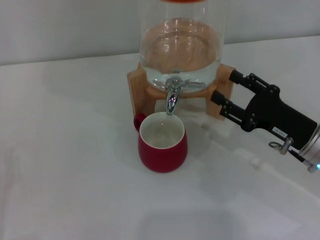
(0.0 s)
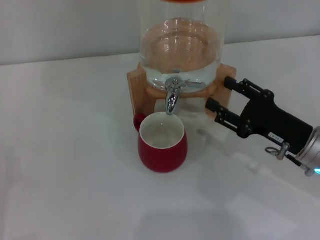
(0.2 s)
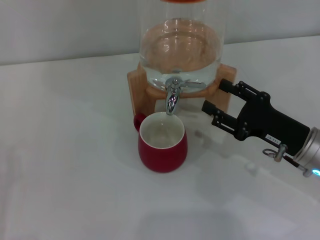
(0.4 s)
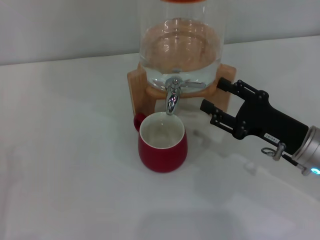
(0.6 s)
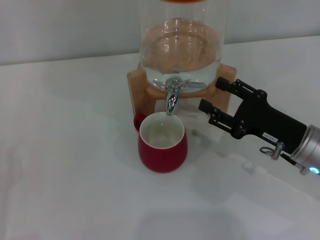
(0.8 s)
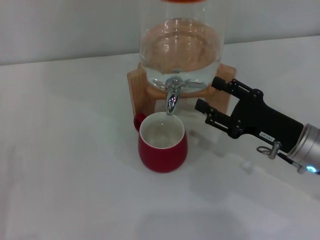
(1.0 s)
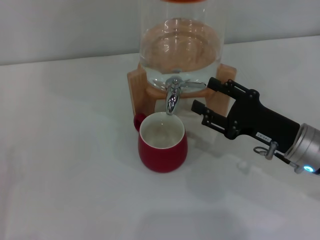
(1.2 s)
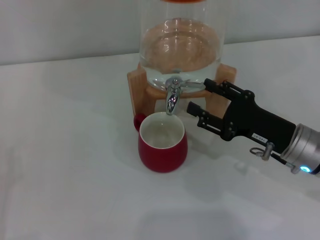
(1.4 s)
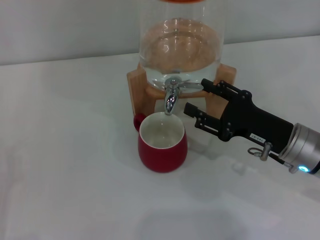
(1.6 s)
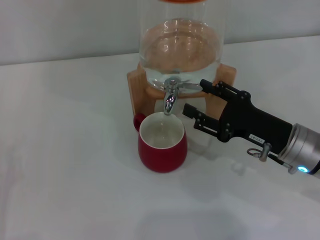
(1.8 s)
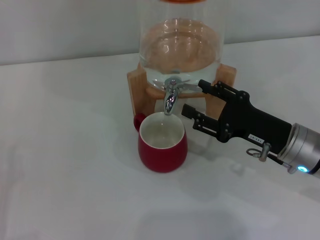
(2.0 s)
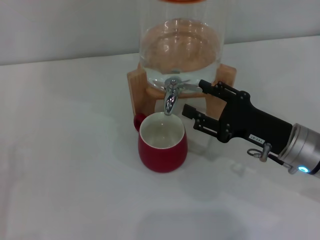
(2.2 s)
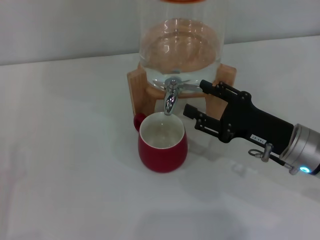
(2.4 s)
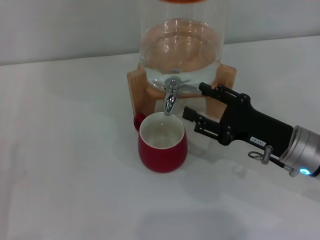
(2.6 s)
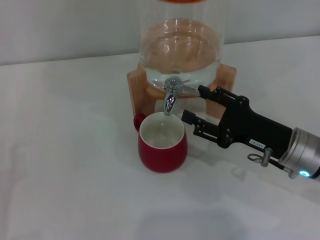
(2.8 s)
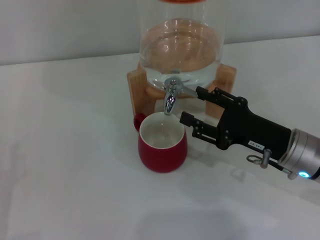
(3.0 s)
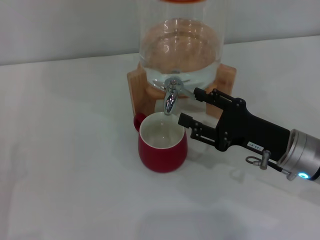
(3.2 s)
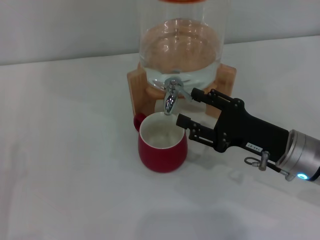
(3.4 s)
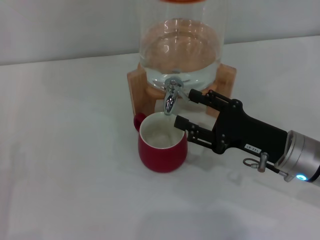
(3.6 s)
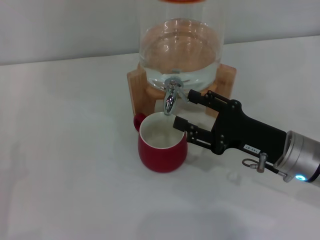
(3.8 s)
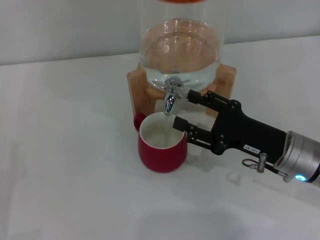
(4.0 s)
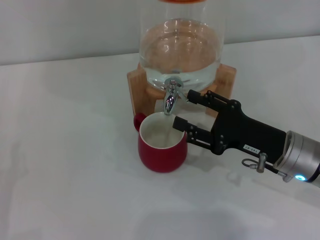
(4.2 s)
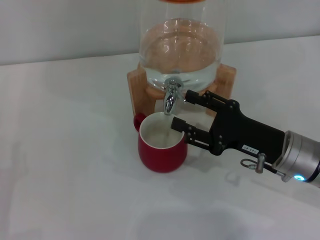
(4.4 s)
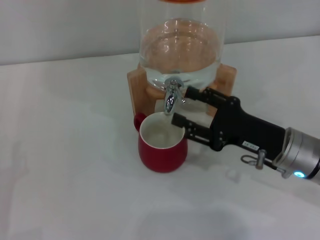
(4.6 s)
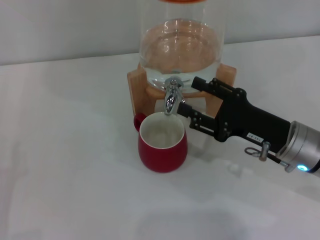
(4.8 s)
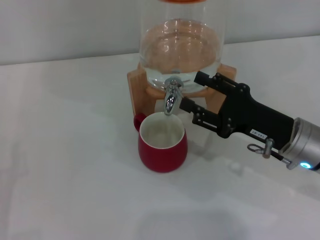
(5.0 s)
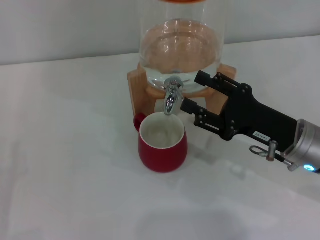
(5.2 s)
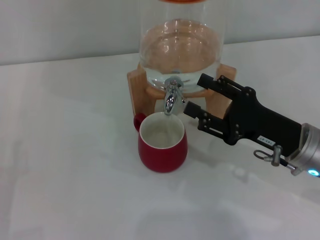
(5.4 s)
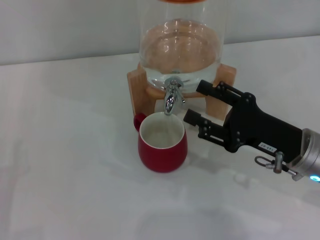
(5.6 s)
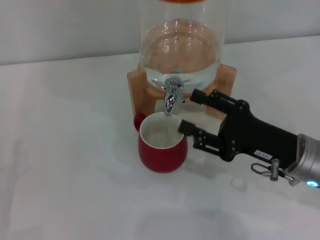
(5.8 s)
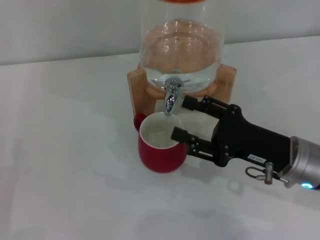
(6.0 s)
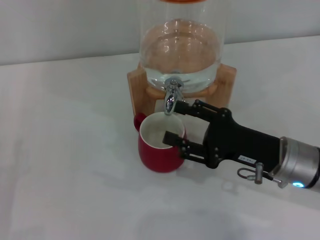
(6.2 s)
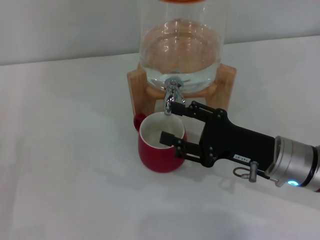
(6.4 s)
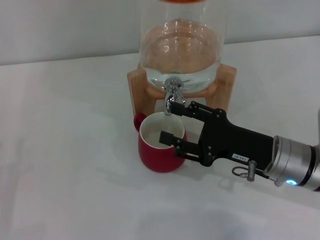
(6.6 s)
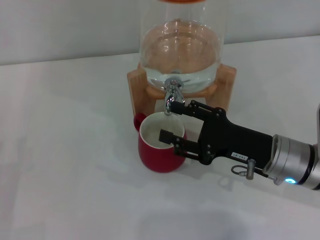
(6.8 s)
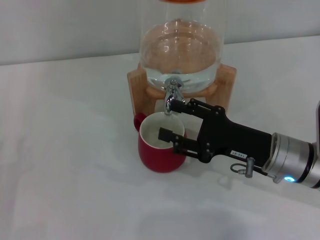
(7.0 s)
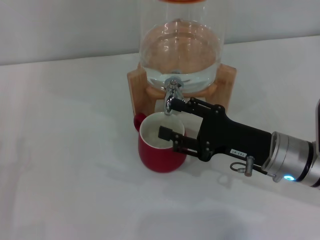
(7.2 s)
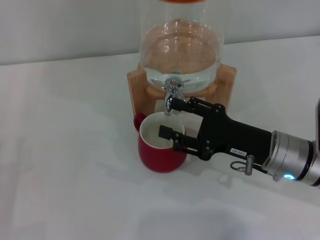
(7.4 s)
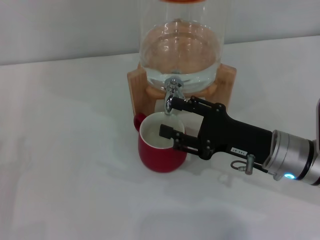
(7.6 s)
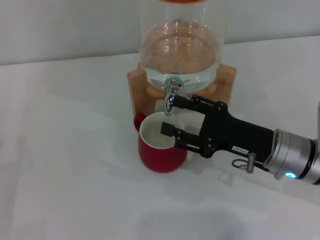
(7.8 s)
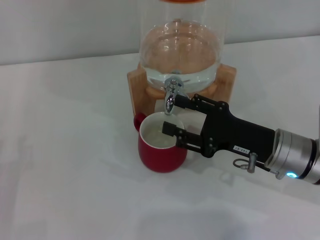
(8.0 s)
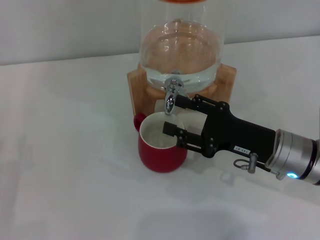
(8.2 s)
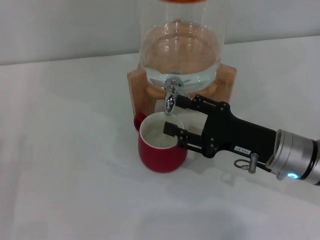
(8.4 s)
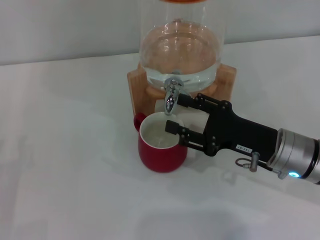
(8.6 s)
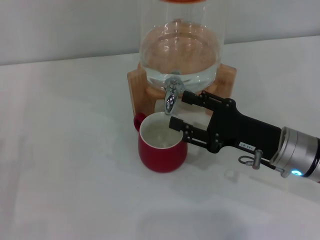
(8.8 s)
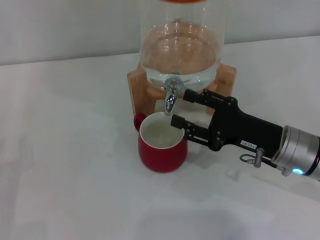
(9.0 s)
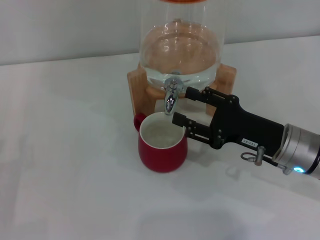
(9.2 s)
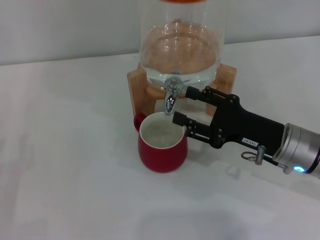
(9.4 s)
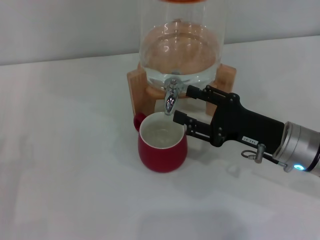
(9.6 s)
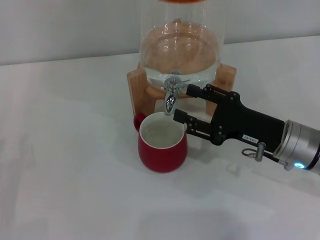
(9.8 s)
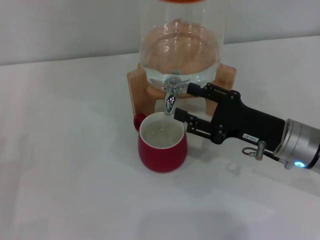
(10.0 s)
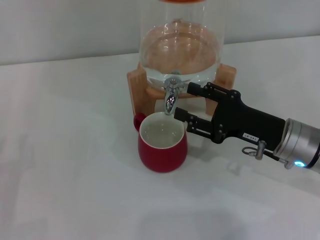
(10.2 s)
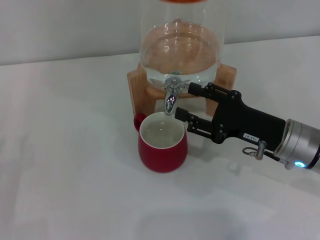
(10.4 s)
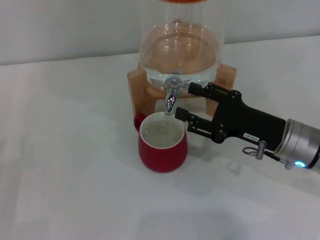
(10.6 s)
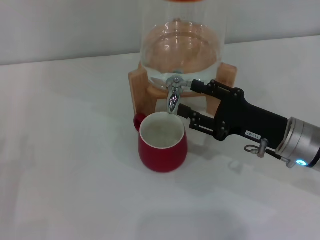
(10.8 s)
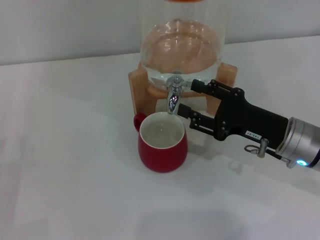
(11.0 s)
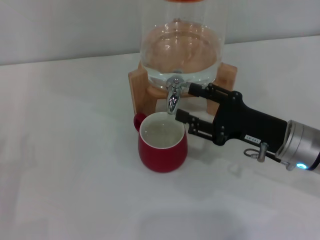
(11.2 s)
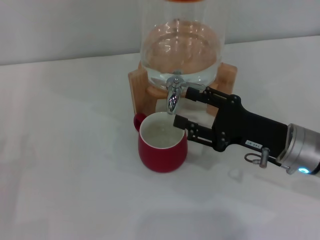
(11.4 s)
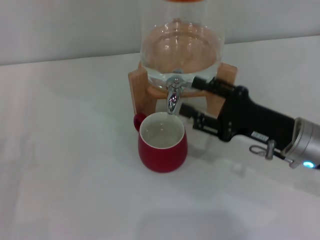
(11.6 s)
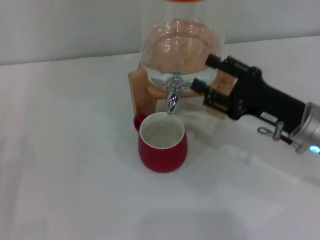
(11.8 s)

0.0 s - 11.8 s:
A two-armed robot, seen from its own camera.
Task of the whole recording: the left gripper pick up the red cup and place it horizontally under the faucet, the right gripper turn on the faucet to fill the cup, and then turn off the faucet.
Step, 0.0 s - 6.2 s: Open the dispenser valve and fill the cup with water with the right gripper.
0.0 s - 1.4 s: The grippers stay close to where they were, moving slightly.
1.4 s - 3.0 s: The two grippers keep their place.
3.0 s - 4.4 s: Both grippers stay put.
4.4 s - 7.4 s: The grippers make only small movements.
7.4 s - 8.8 s: The two grippers keep their place.
8.8 s - 10.4 s: The two grippers keep their place.
10.4 s - 11.8 s: The grippers make only small movements.

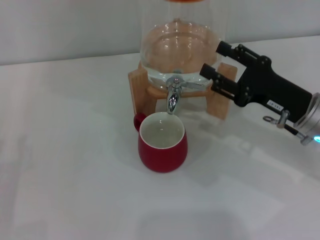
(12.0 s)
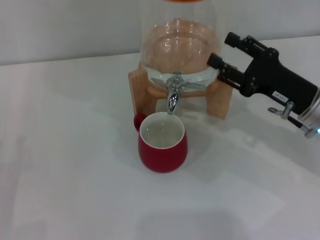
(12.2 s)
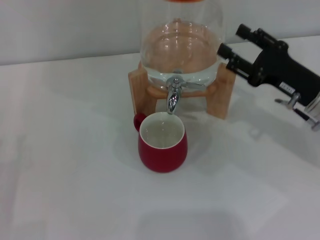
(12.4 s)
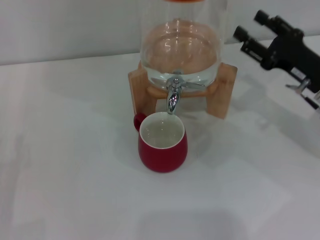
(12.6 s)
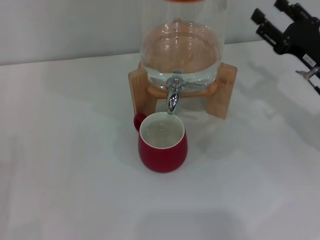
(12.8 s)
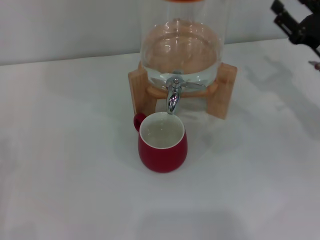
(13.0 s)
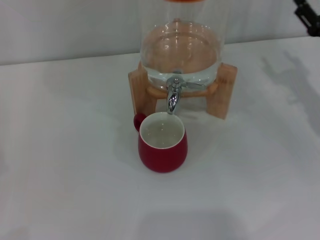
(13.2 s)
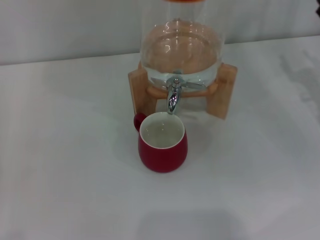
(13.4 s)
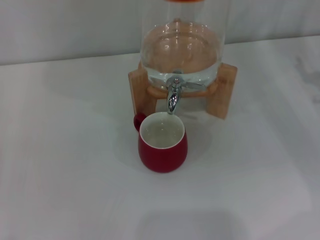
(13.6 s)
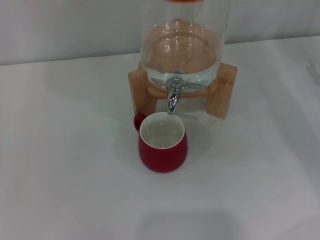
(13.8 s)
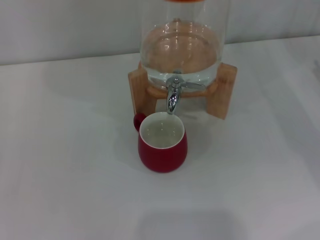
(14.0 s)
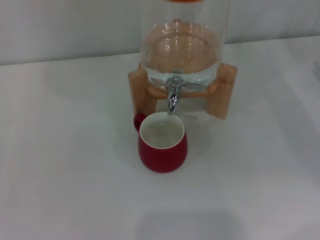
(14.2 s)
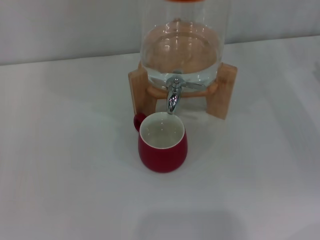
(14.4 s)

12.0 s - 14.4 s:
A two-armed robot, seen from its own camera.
Task of the whole recording: the left gripper pick up the red cup and place it horizontally under the faucet, the right gripper turn on the faucet to fill the cup, and then turn off the faucet.
12.0 s - 13.2 s: The right gripper shifts roughly 10 cm to the right.
13.2 s - 14.4 s: The right gripper shifts approximately 5 cm to the right.

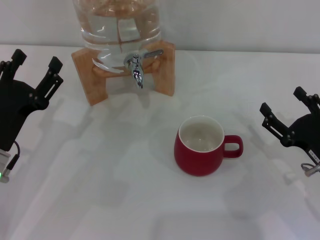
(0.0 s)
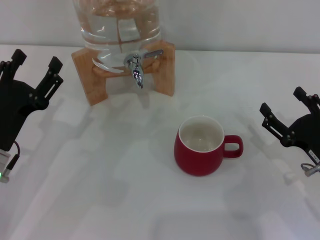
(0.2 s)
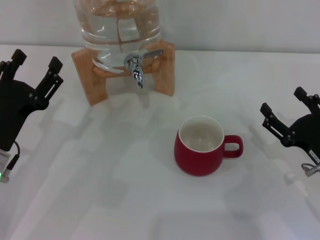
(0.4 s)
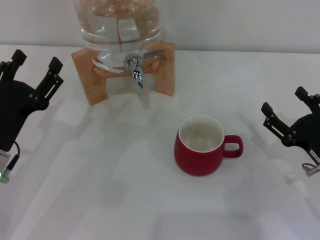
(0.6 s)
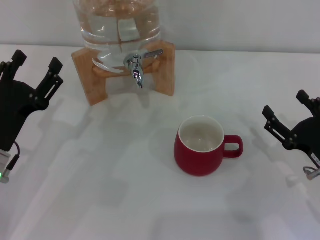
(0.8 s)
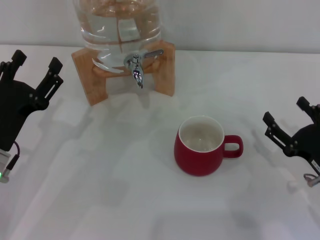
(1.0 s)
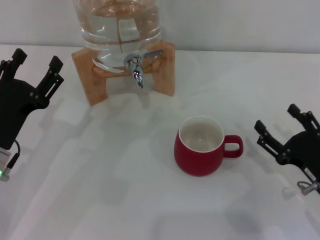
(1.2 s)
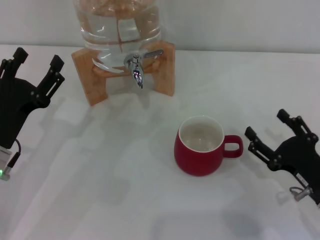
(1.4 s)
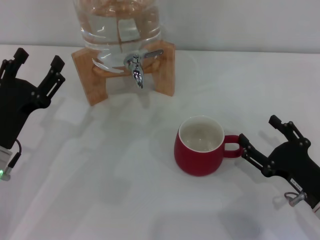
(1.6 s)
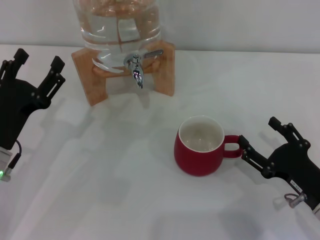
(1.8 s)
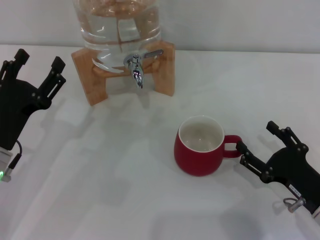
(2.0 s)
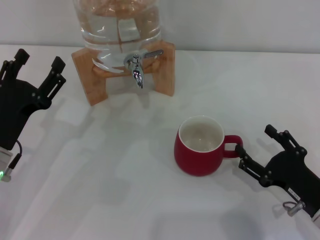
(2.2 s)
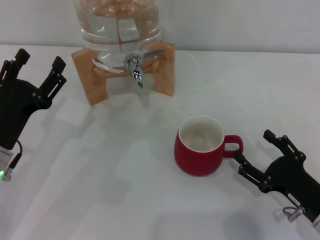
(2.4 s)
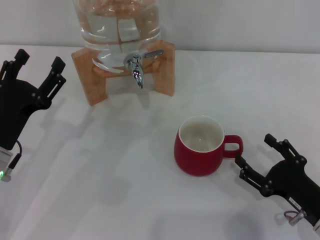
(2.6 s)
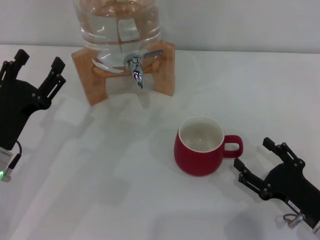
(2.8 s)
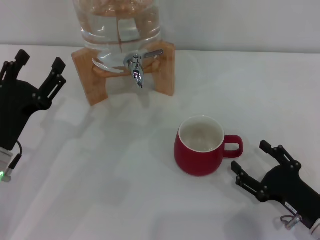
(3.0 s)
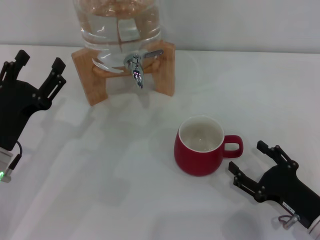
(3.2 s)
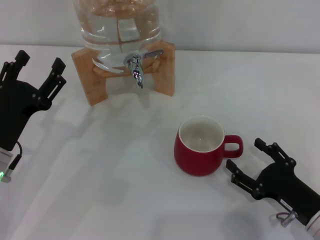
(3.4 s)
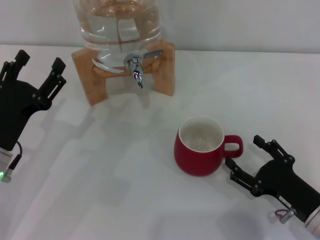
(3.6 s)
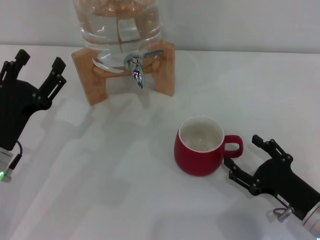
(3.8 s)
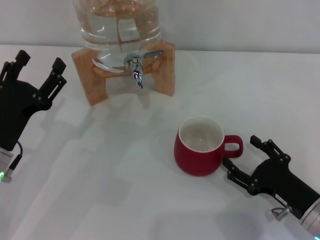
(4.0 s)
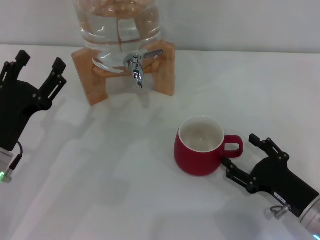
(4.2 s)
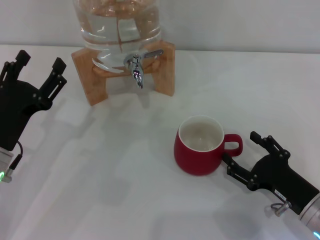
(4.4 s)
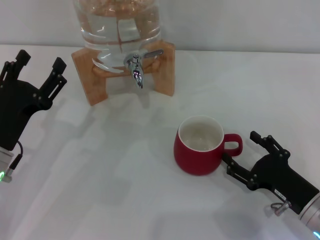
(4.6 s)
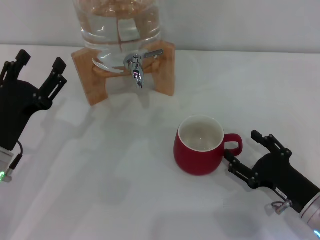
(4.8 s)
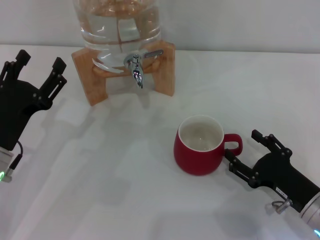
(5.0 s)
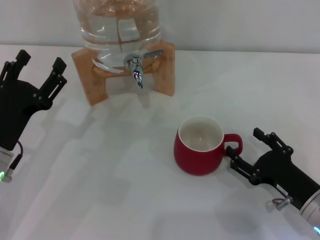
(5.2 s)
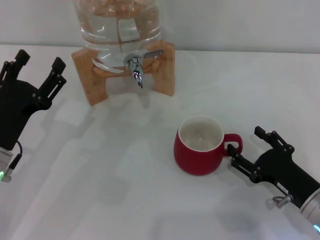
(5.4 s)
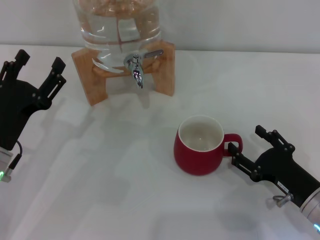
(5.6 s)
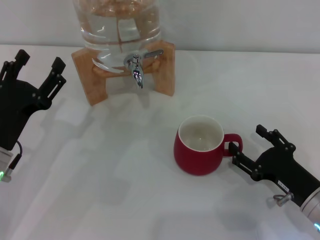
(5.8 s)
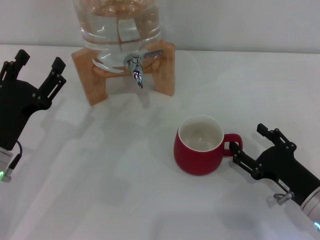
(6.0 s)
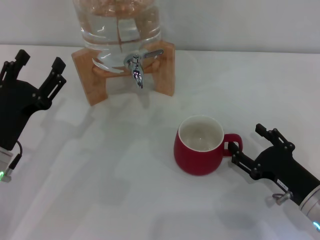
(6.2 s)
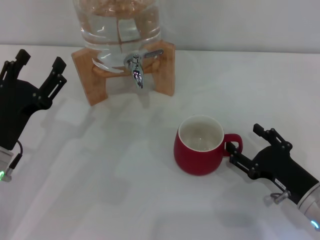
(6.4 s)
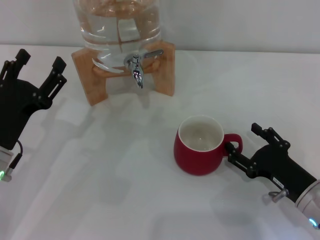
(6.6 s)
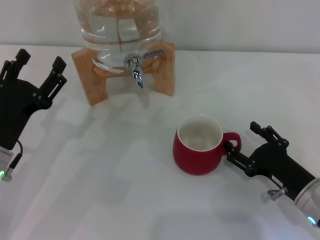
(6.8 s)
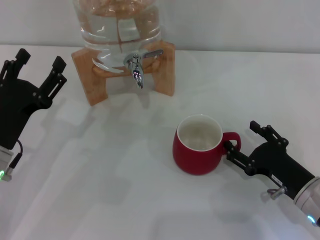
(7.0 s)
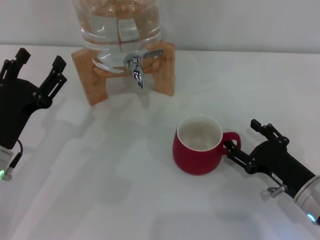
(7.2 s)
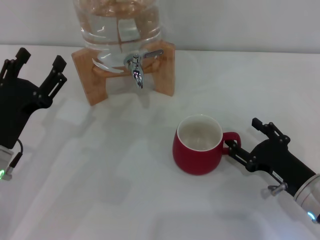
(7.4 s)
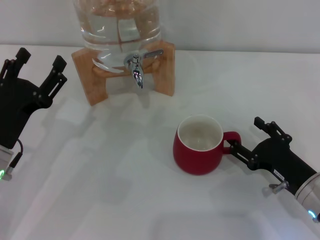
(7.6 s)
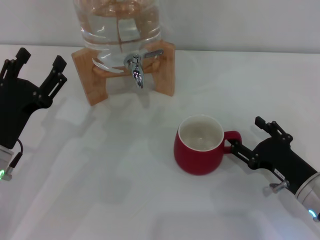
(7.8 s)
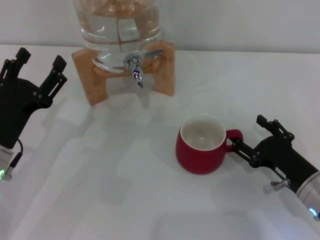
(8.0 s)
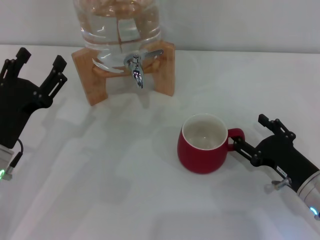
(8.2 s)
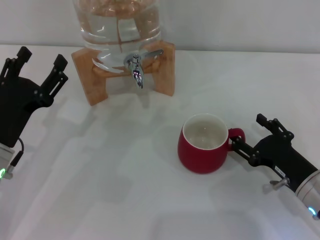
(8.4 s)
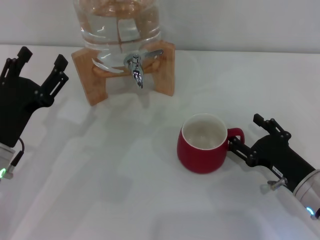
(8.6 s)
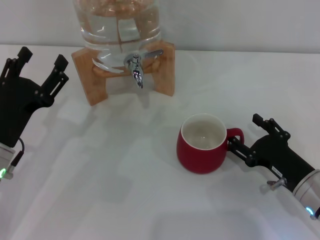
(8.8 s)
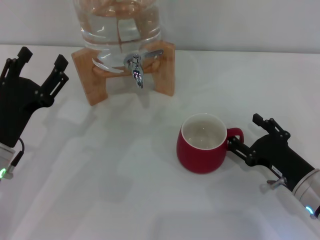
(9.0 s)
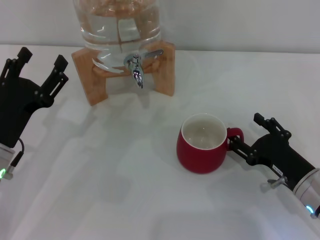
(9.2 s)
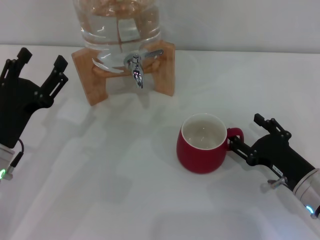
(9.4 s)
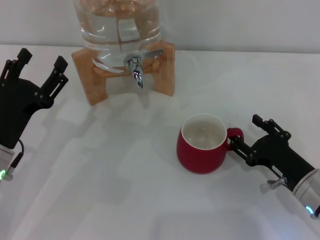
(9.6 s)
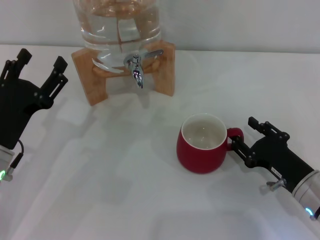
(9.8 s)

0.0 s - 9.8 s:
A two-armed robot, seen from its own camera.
Task of the whole recording: the right gripper pick up the red cup and place it horizontally under the faucet, the left gripper turn on the faucet to fill the cup, and then turn off the faucet.
0.0 s - 4.2 s: The grippers make only small movements.
4.2 s - 5.6 s: Both grippers stay about where they are.
5.6 s - 7.0 s: The two grippers keep their place.
7.0 s - 9.8 s: Both grippers stay put.
